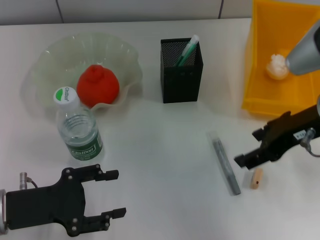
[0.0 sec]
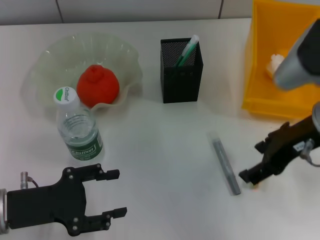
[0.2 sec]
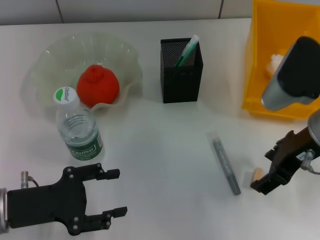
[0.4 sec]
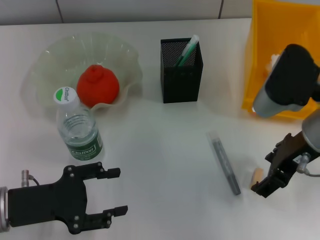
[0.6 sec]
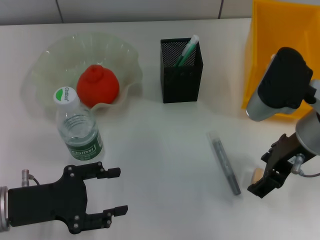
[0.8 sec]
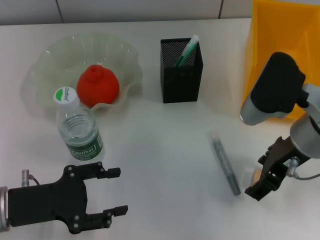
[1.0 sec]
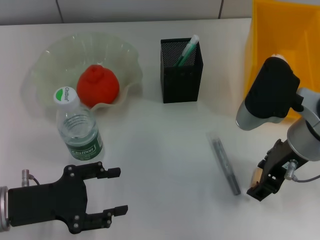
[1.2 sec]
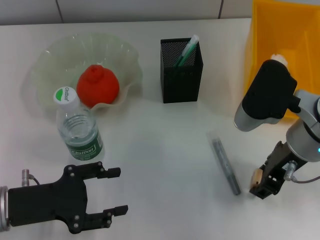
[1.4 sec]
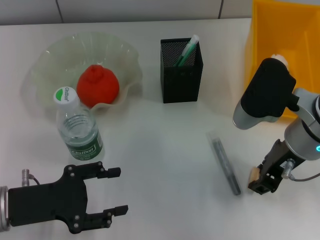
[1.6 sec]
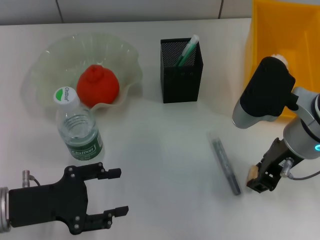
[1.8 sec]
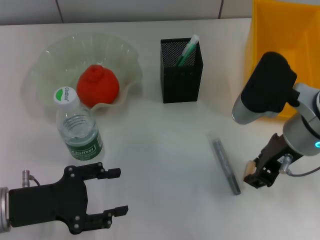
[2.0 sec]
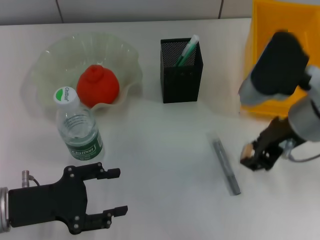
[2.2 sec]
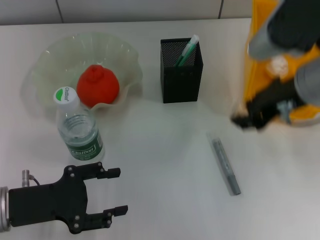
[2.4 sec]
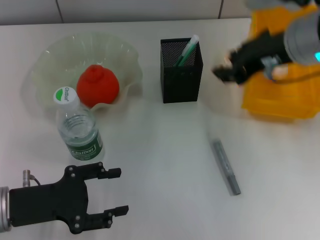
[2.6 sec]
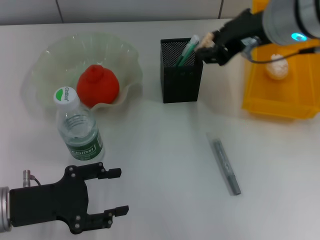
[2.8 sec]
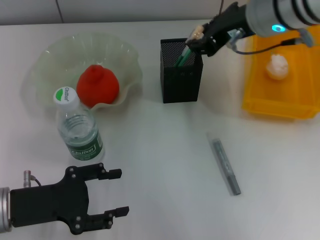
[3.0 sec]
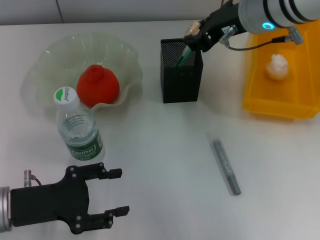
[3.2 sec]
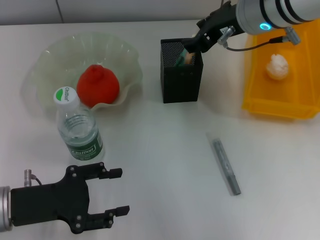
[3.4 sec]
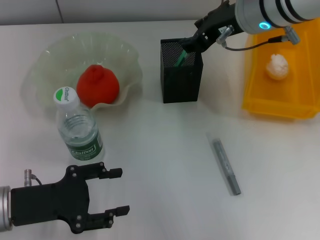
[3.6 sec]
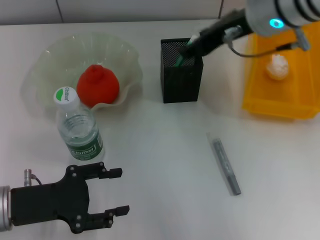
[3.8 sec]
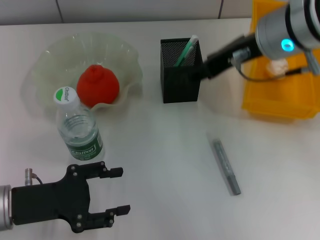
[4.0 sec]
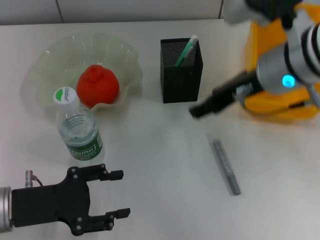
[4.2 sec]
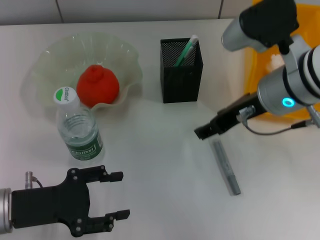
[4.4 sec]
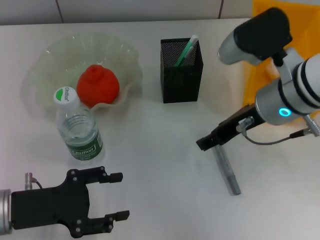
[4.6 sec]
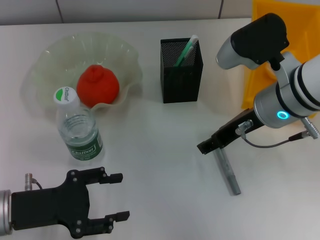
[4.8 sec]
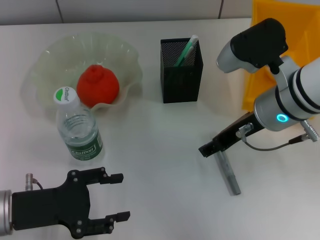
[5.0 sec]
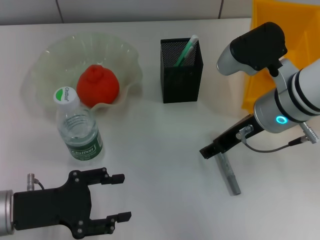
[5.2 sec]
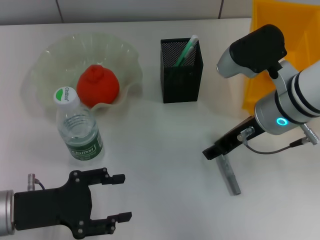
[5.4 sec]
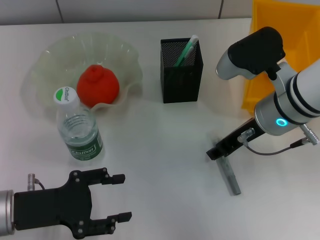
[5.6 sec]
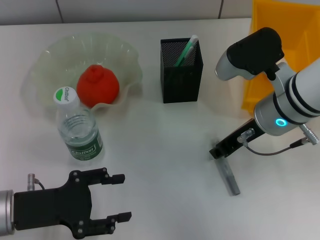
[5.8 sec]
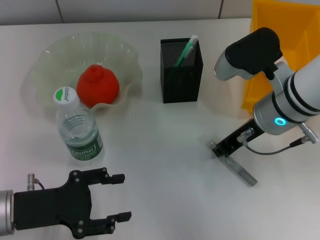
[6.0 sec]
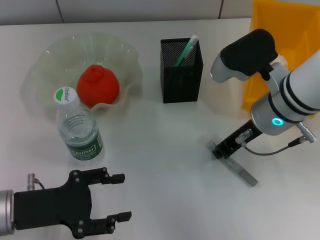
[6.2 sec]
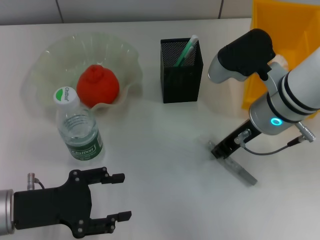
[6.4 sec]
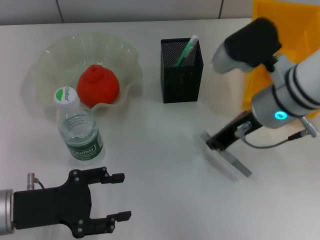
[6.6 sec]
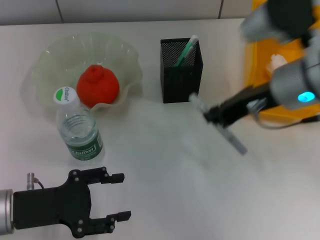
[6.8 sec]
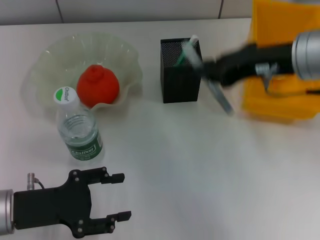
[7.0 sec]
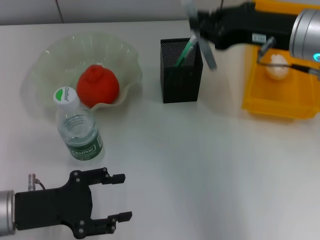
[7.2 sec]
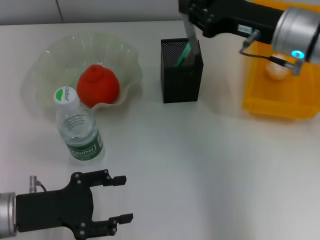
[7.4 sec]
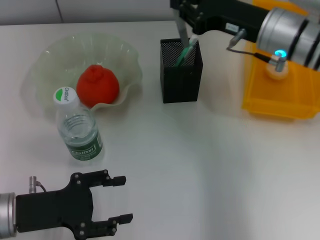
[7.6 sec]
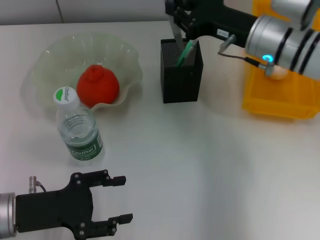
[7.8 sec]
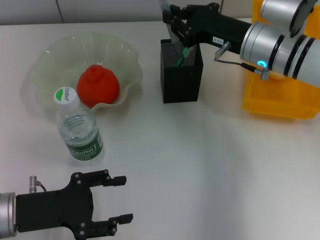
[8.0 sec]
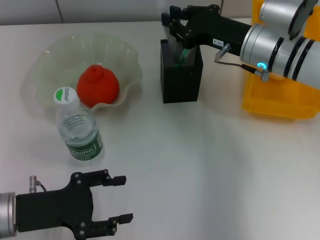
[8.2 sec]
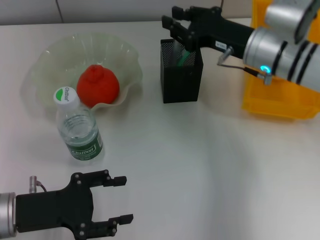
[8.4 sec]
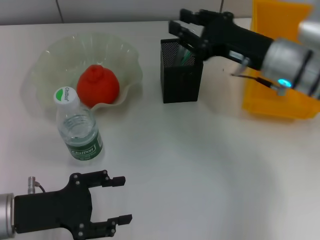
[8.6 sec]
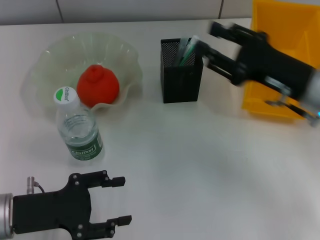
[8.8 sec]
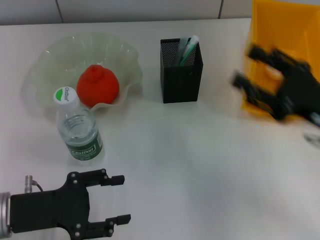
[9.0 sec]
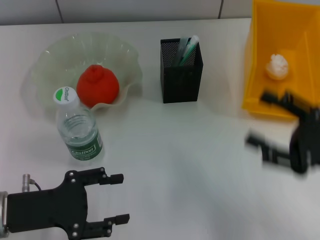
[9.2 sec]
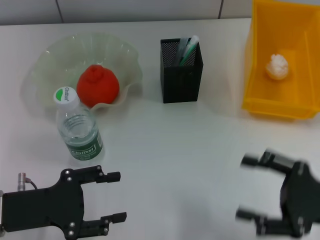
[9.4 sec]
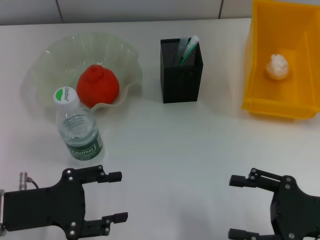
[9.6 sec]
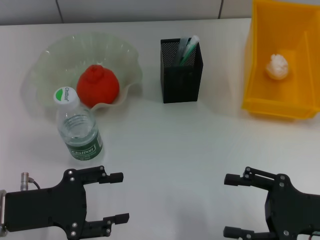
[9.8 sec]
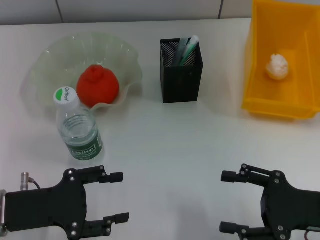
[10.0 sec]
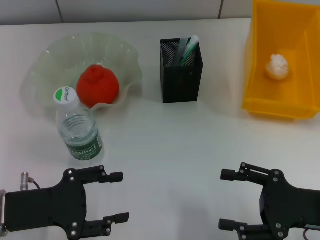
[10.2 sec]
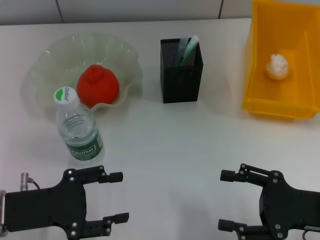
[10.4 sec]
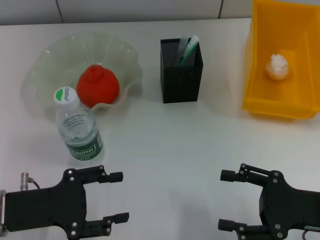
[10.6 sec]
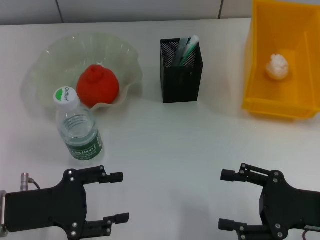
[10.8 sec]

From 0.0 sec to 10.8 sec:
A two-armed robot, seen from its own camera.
Step, from 0.0 sec to 1.4 sec: Grab the eraser with the right hand.
Step, from 1.8 sec to 3.6 sec: Put the eraser into the pen holder with the right hand.
Step, from 3.8 sec to 6.0 sec: Grab the gray glue with the right hand.
Step, from 6.4 sec to 8.4 sec: Place the gray glue into the pen holder with the right hand.
From 0.0 sec to 1.6 sec: The right gripper moves about 5 cm, and closes.
From 1.6 sec to 3.0 sec: The right gripper moves upward and forward, roughly 10 cm.
From 3.0 sec to 4.6 sec: The right gripper travels downward and backward by about 10 cm, and opens.
From 4.6 sec to 6.2 sec: The right gripper closes up.
From 6.2 sec to 7.8 sec: The right gripper travels forward by approximately 5 cm, and moves approximately 10 cm upward and comes back.
From 7.8 sec to 9.2 sec: The right gripper heads backward and to the right, covering some 20 cm, and opens up.
From 9.2 sec to 10.8 sec: There are only small adjustments of the grippers.

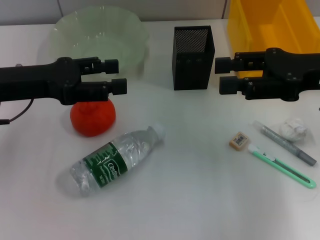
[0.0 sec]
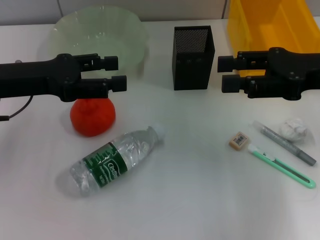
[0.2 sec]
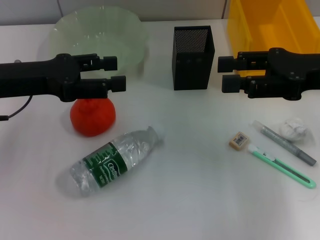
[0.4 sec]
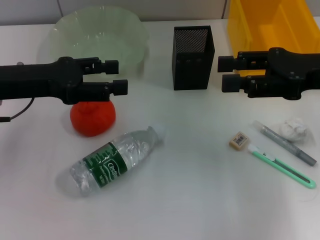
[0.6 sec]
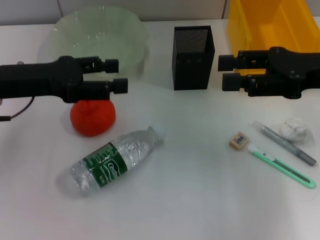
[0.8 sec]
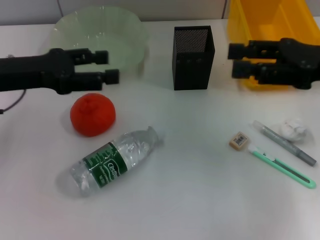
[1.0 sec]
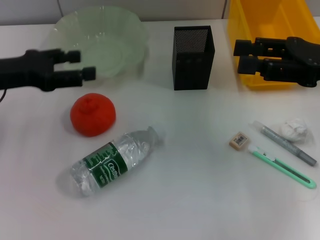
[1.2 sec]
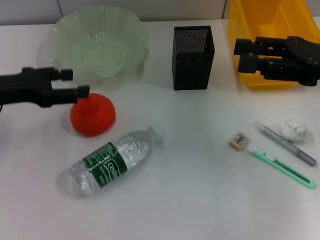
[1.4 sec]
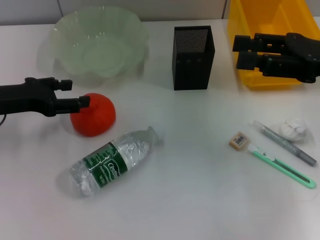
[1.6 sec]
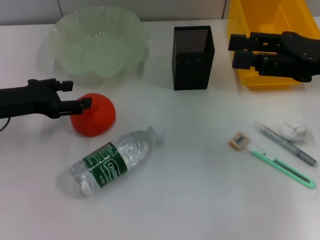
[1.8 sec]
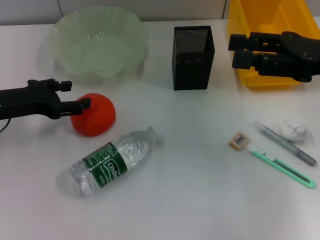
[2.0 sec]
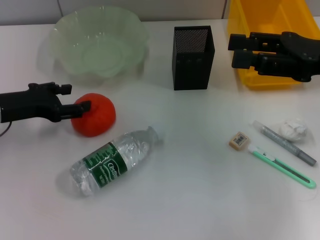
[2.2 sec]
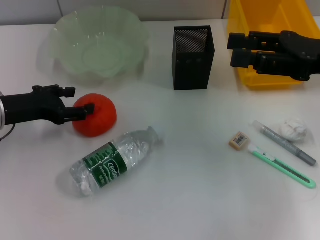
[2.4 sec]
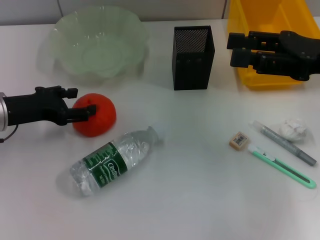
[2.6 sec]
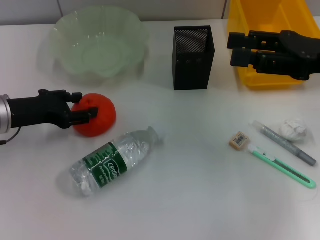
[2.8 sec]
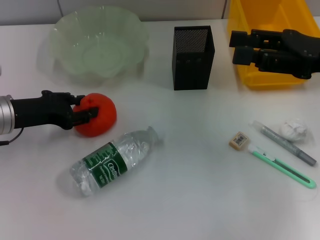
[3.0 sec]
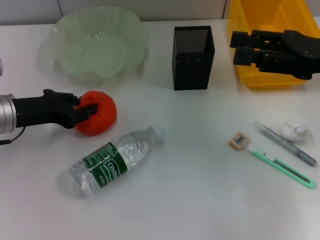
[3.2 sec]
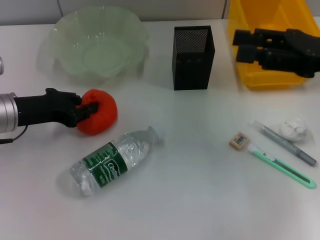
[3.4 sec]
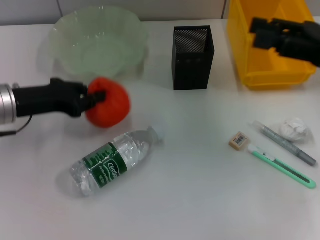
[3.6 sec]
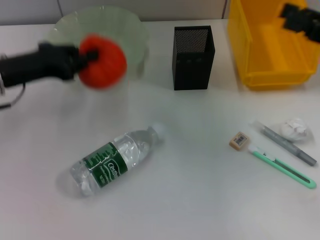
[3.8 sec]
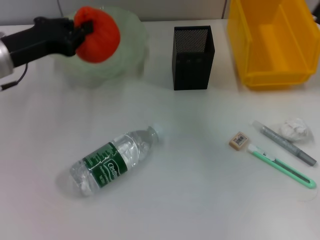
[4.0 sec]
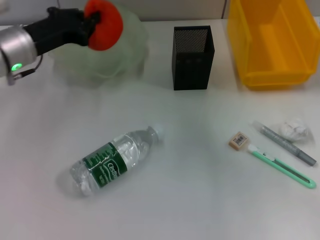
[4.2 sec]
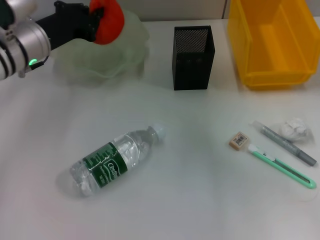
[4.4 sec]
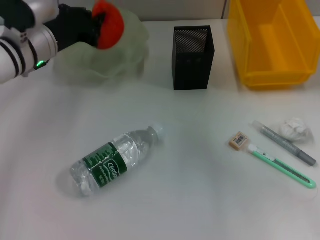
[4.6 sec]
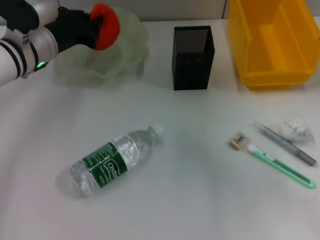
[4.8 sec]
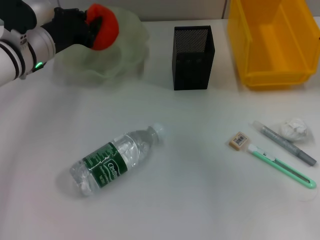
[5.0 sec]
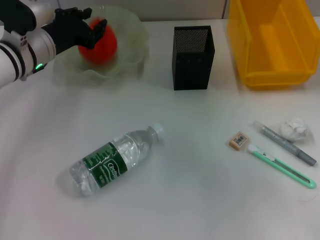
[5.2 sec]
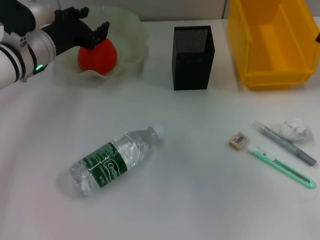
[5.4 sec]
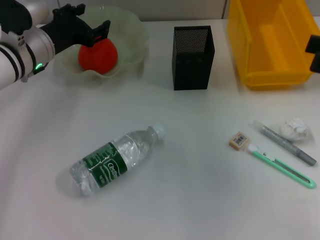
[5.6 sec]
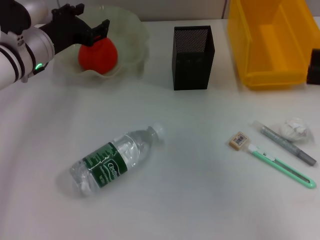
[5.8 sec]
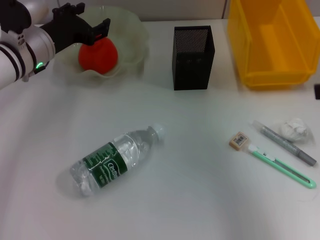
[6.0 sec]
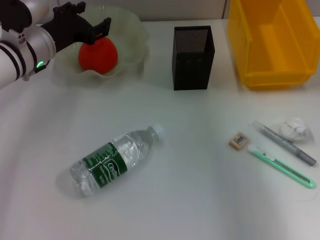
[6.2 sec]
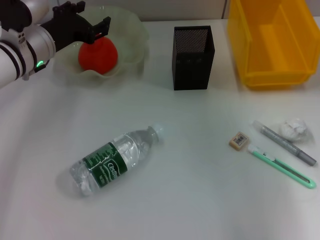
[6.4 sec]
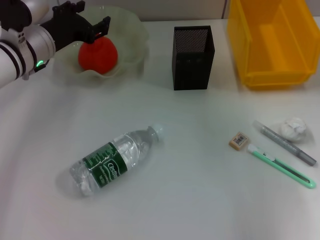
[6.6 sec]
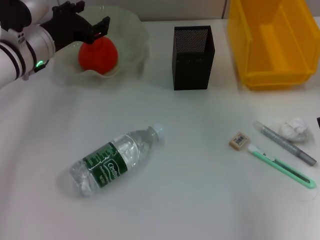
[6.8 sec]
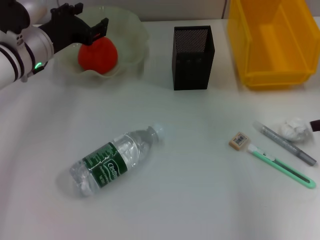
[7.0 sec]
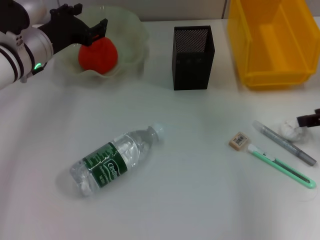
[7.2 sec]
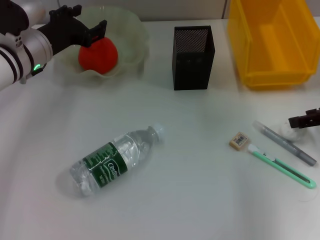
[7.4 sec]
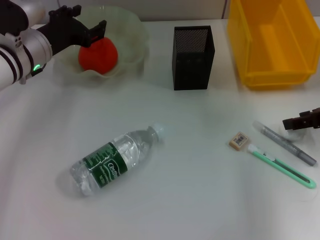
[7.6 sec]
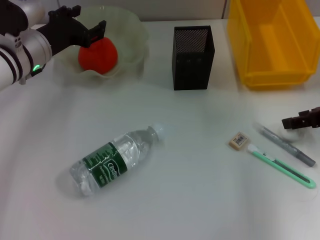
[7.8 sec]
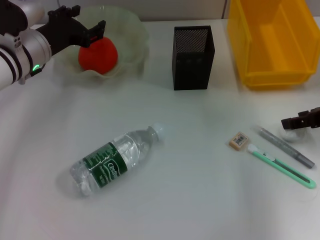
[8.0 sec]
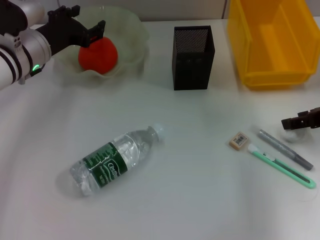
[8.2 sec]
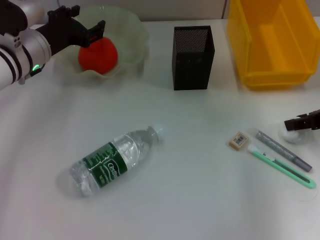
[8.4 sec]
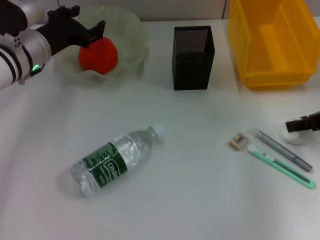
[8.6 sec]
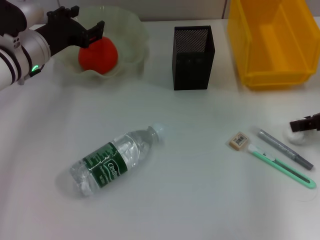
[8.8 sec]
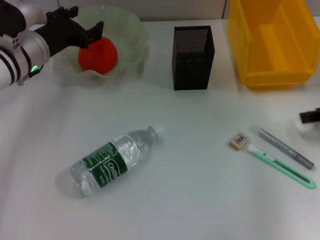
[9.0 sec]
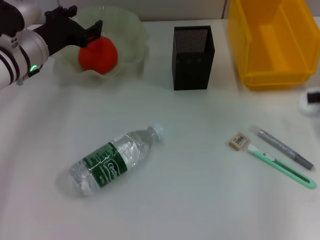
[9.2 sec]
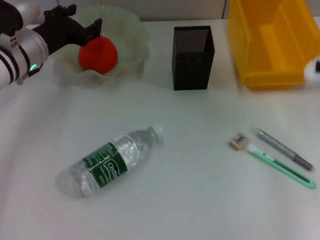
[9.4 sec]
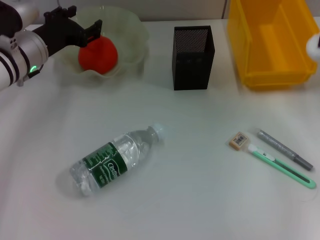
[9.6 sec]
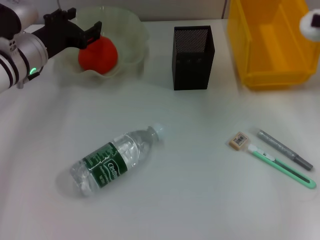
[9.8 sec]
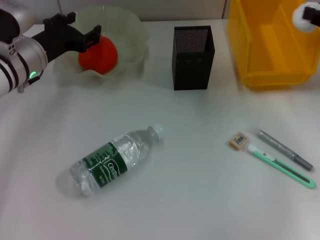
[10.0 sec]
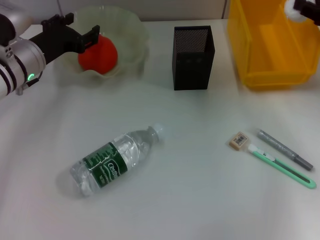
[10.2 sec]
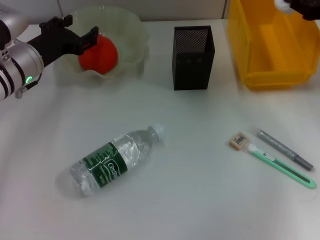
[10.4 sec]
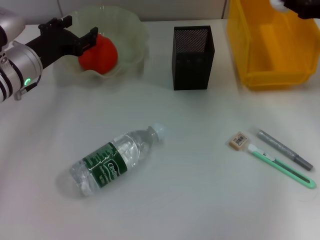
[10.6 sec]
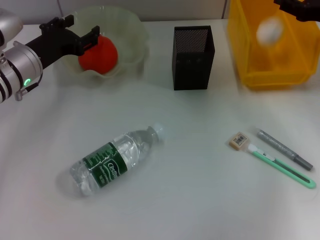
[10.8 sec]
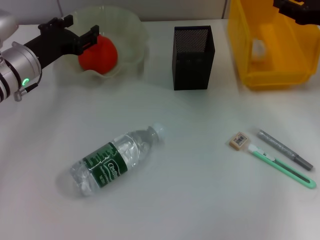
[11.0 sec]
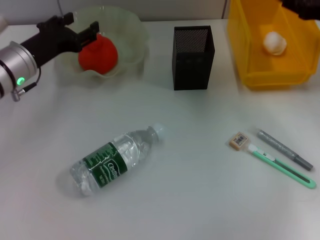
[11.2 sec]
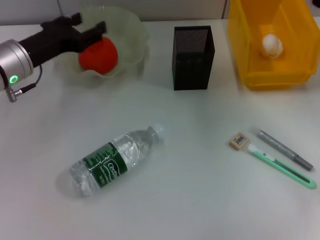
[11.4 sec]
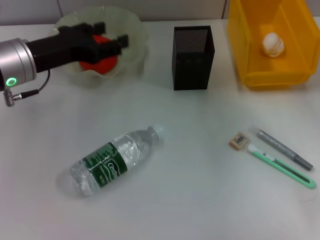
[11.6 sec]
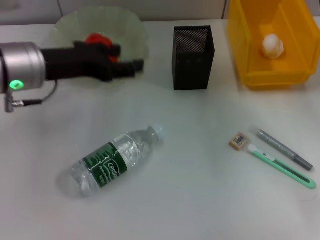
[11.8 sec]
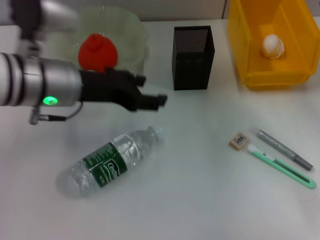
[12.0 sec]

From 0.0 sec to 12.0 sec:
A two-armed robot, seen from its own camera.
Step, from 0.0 sec to 3.0 sec: Grab the orange with the left hand.
Step, from 3.2 sec to 5.2 sec: Place the orange into the fruit bowl with the left hand.
Step, from 5.4 sec to 8.4 sec: Grab the paper ball with the right hand.
Step, from 8.8 sec to 11.0 sec: Place the paper ball into the trash can with the right hand.
From 0.0 sec to 1.6 sec: The left gripper moves approximately 5 cm.
From 1.6 sec to 3.0 sec: The grippers stay close to where they were, moving slightly.
From 3.0 sec to 4.4 sec: The right gripper heads to the right and backward, covering some 10 cm; the left gripper travels forward and to the right by roughly 10 cm, and closes up.
From 4.4 sec to 6.0 sec: The left gripper opens its fingers. The right gripper travels upward by some 10 cm.
From 6.0 sec to 7.6 sec: The right gripper shifts some 15 cm downward and forward.
From 7.6 sec to 9.0 sec: The right gripper closes its fingers.
From 9.0 sec to 10.4 sec: The right gripper moves forward, roughly 5 cm.
From 10.4 sec to 12.0 sec: The left gripper is displaced upward, to the right and backward by some 15 cm, while the right gripper shifts by approximately 5 cm, and opens up.
